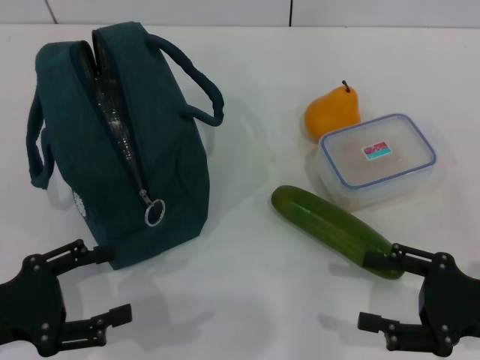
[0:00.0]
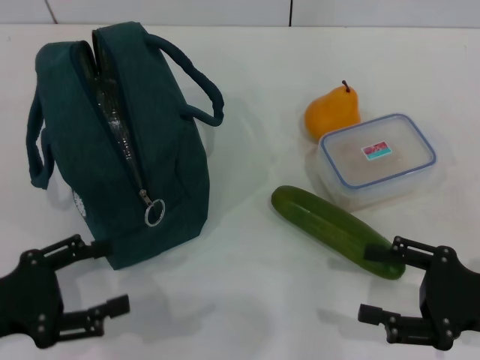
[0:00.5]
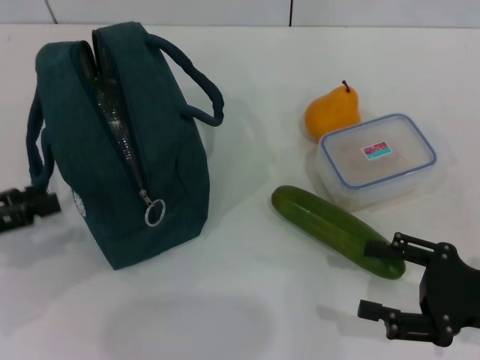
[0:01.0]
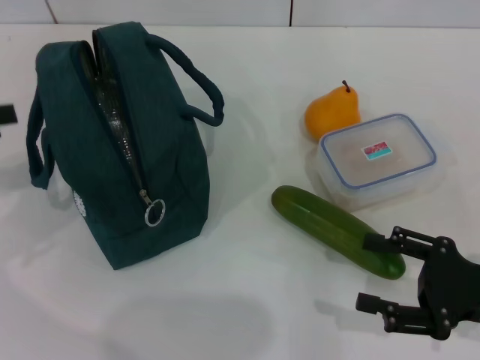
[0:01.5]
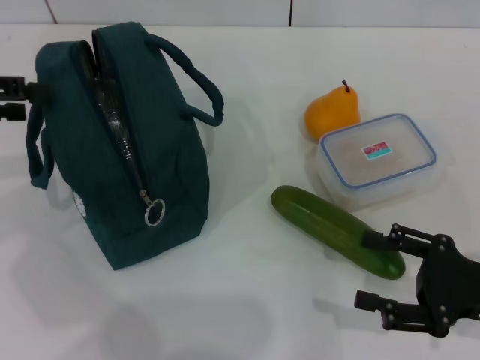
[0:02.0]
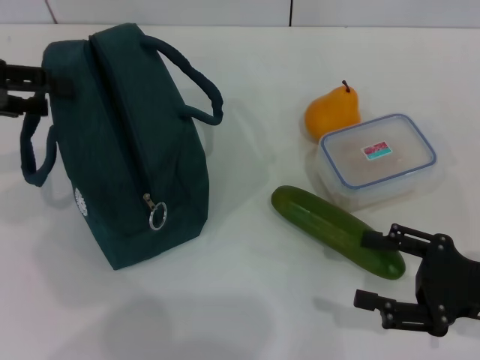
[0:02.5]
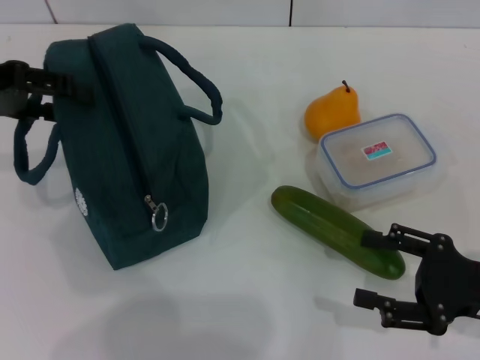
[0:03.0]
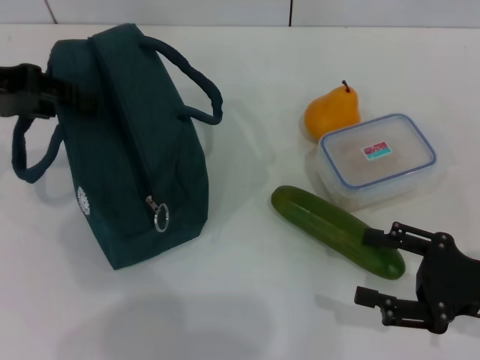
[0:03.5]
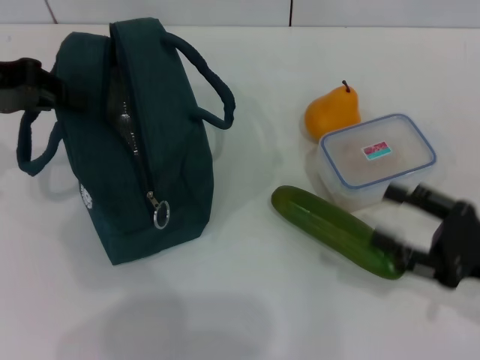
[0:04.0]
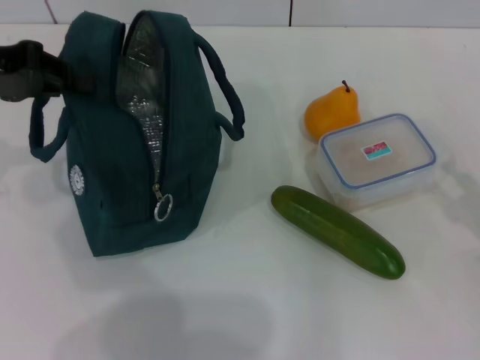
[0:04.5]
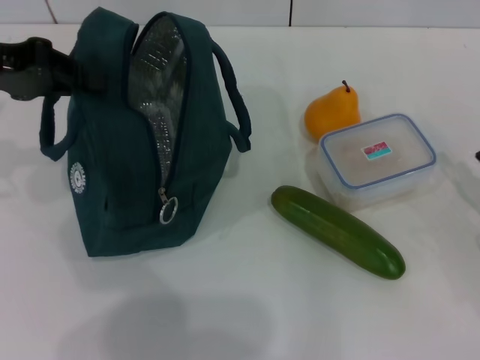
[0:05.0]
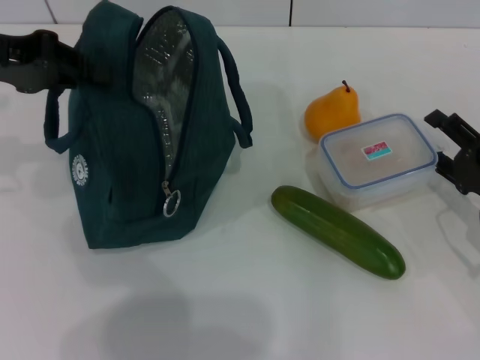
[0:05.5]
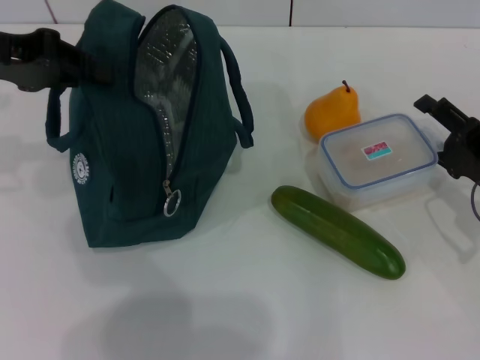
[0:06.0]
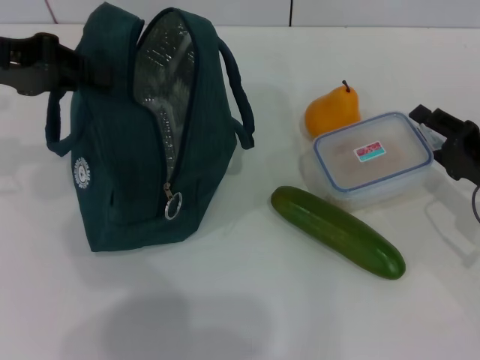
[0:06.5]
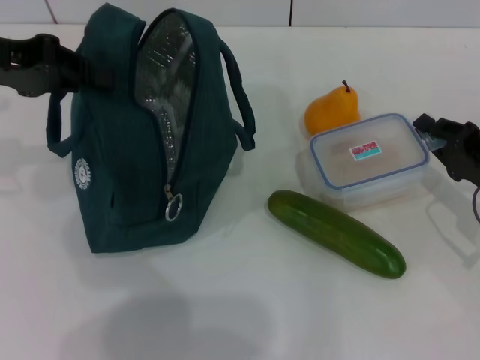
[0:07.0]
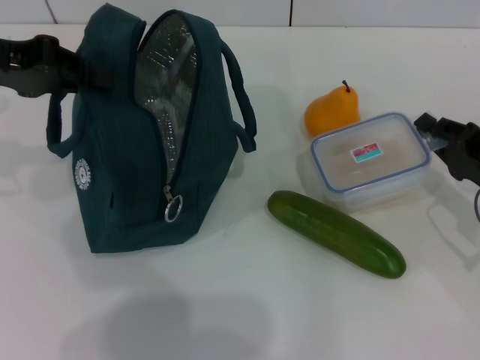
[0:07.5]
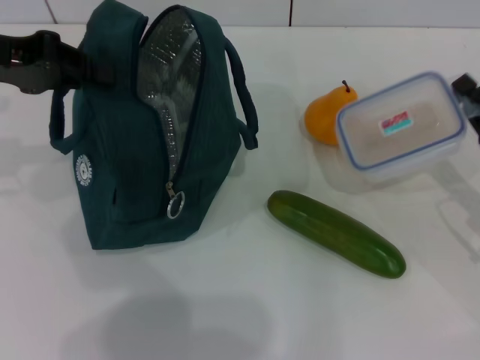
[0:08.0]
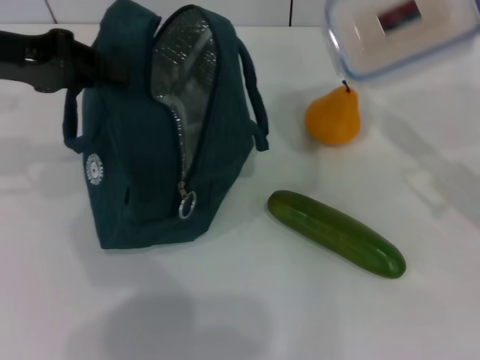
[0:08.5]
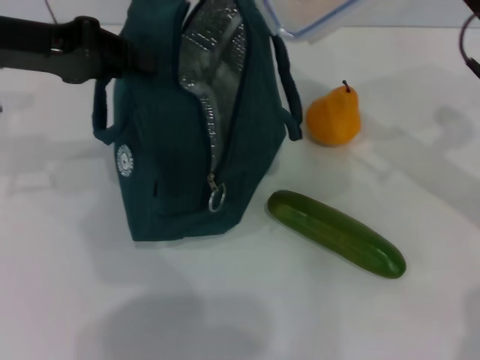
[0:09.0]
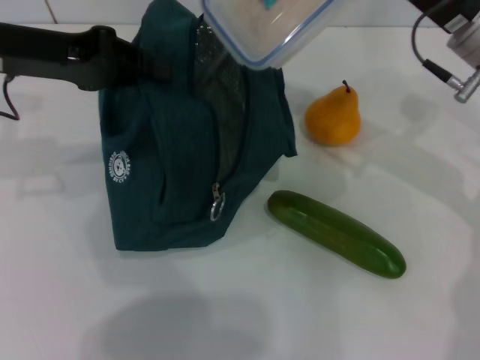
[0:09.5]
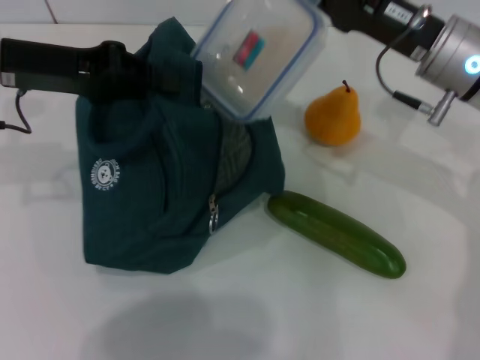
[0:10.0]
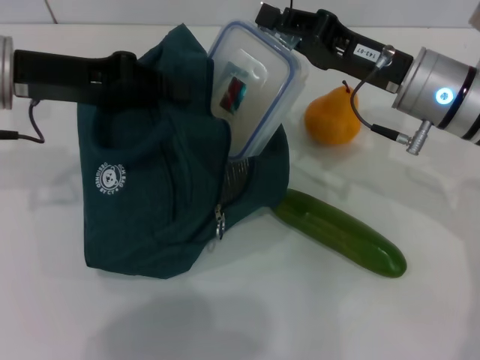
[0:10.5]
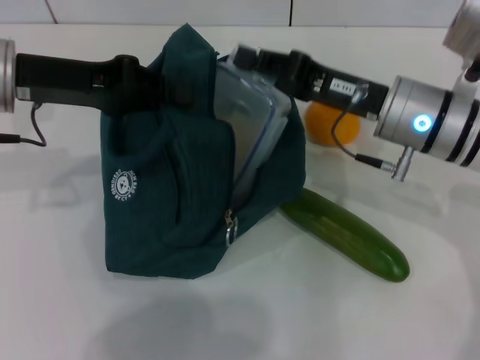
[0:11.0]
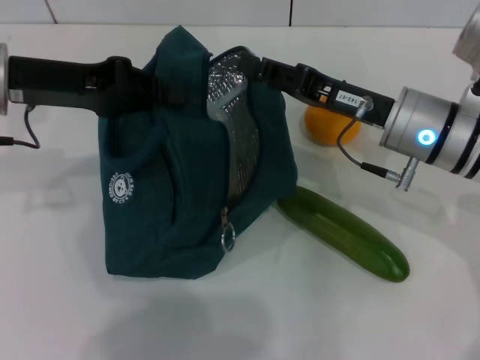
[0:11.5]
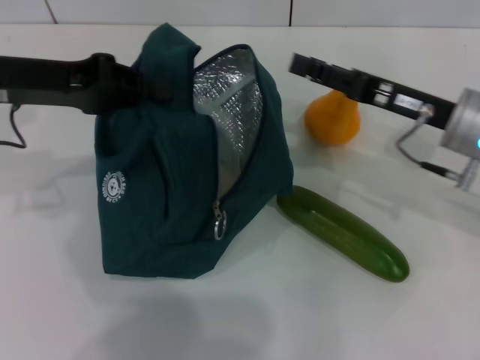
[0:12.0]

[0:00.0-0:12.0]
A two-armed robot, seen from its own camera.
Step, 0:00.0 to 0:05.0: Hold the lunch bag with your left hand.
Step, 0:05.5 to 0:07.5: Pick up the lunch box with your right hand.
Step, 0:08.0 to 0:11.5: Place the lunch box into the lunch bag with your right hand.
0:00.0 to 0:02.0: The left gripper is displaced forward and upward by some 20 cm.
0:02.0 to 0:04.0: The left gripper ends up approximately 5 cm from where it was, and closes.
0:04.0 to 0:06.0: The right gripper heads forward, covering some 10 cm.
0:06.0 to 0:08.0: The right gripper closes.
0:08.0 to 0:10.0: The right gripper travels to the left, upward and forward by approximately 20 cm. The left gripper shifts by about 5 cm.
0:10.0 to 0:12.0: The right gripper ends up about 5 cm from where it was, and opens.

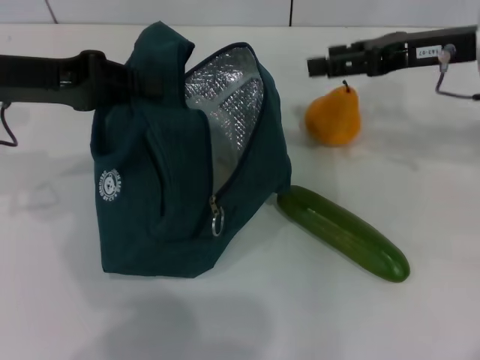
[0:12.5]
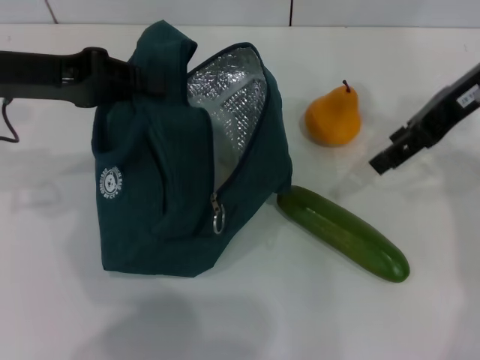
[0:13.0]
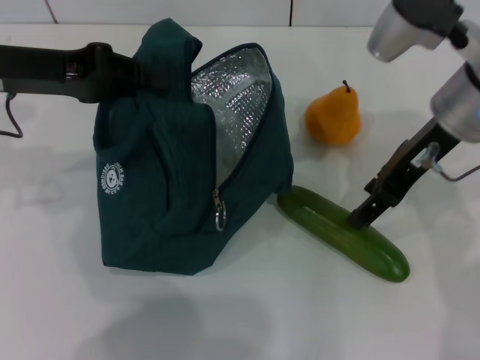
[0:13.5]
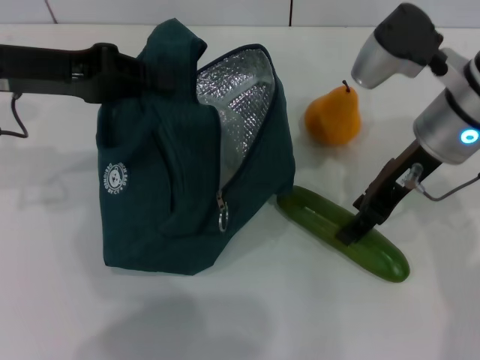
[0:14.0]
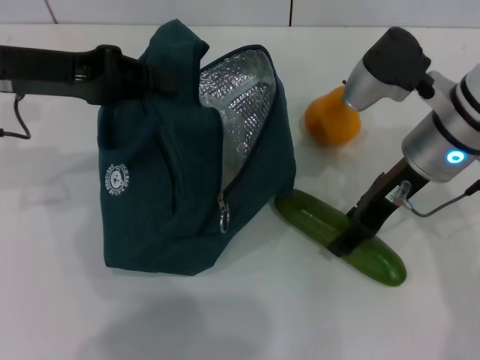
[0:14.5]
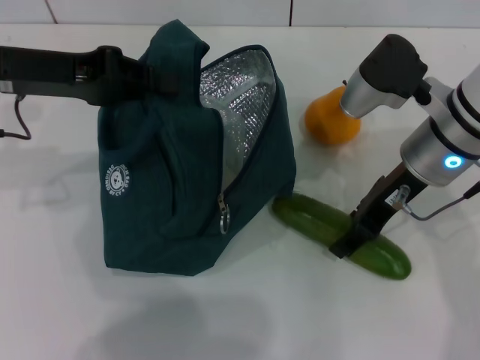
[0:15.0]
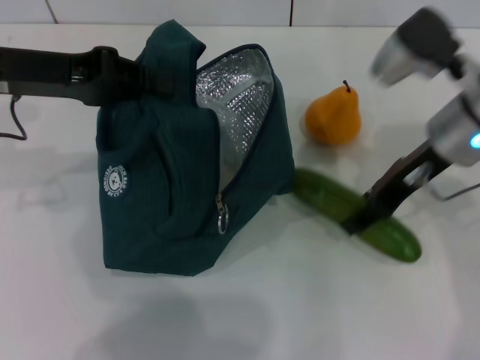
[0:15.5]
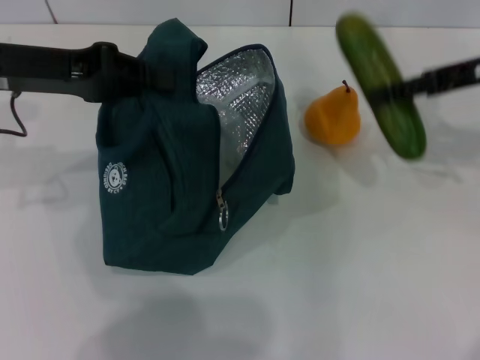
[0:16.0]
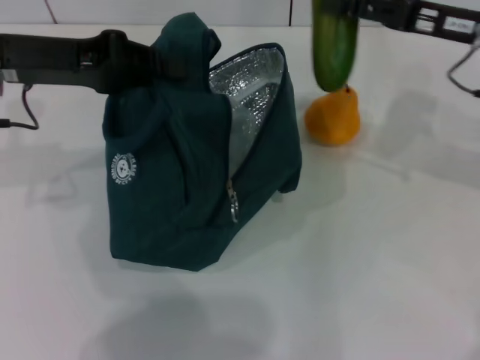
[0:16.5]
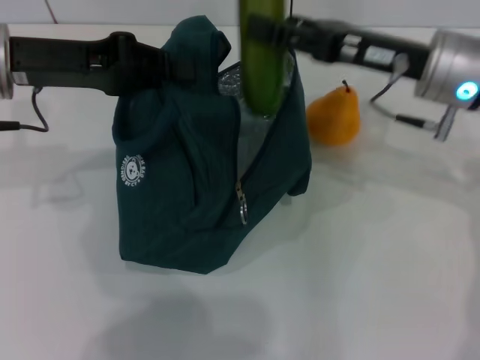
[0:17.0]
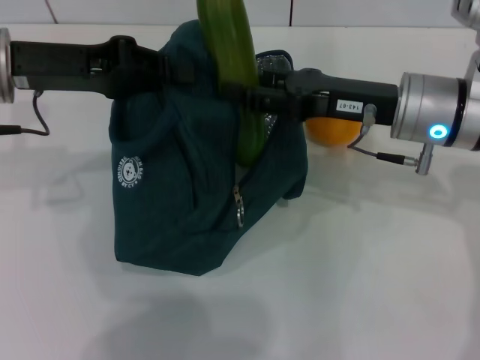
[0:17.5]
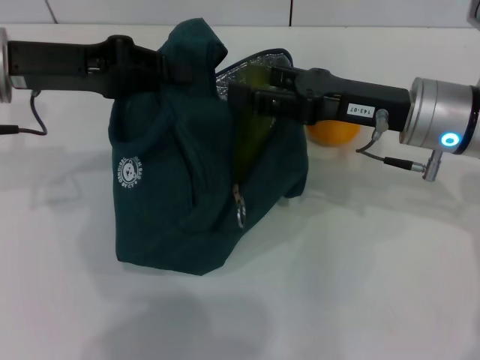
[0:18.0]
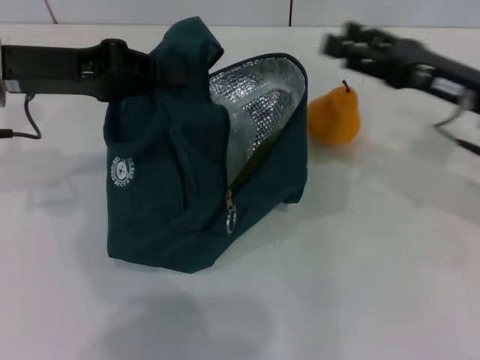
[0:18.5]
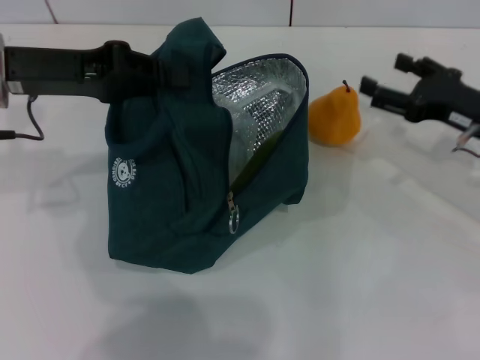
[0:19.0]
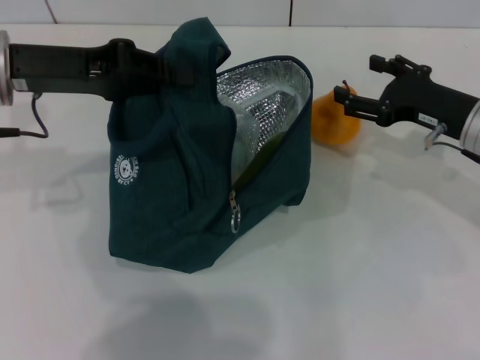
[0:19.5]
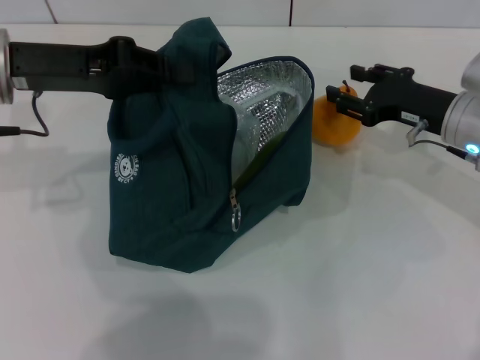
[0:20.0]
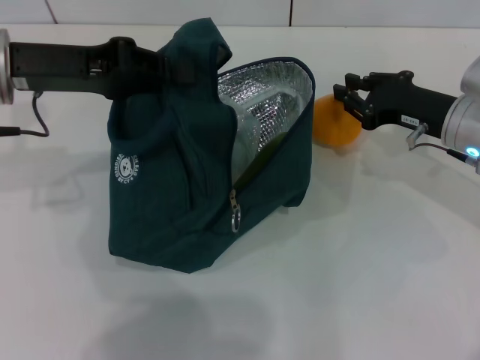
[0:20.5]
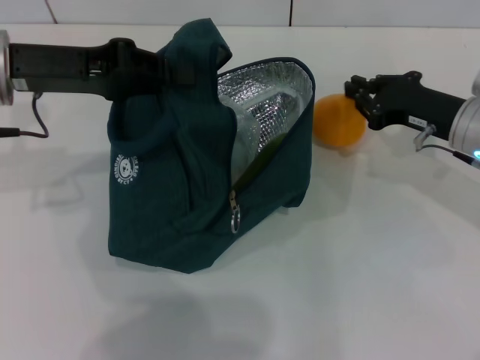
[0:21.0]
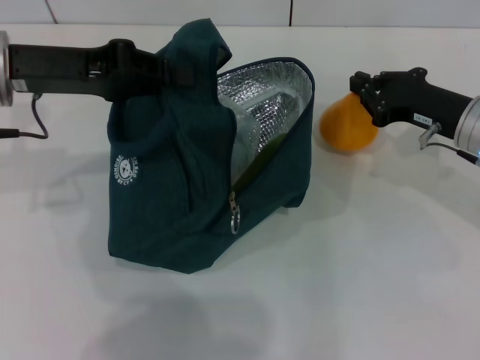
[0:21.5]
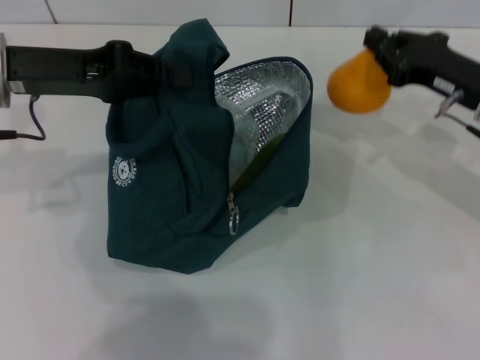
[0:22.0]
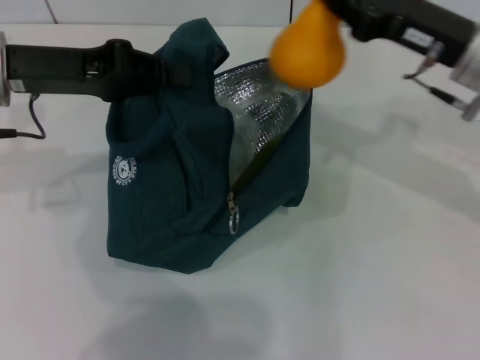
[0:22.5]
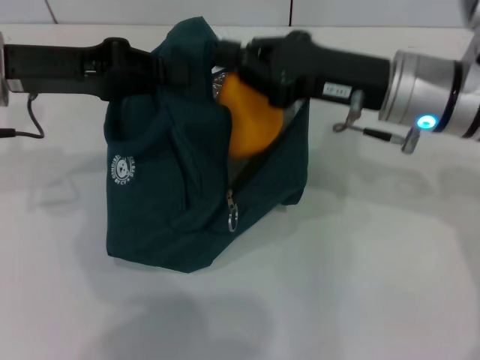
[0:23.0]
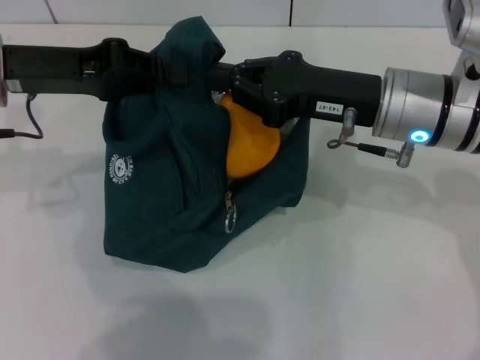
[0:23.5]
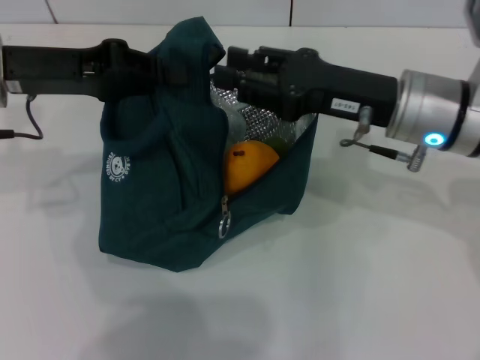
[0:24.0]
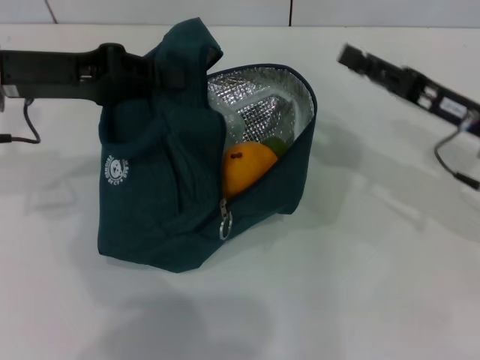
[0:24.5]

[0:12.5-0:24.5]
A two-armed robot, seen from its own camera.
Step, 0:12.5 to 0:15.0: Pick up the cucumber with your right hand.
Step, 0:15.5 to 0:18.0: Put the cucumber into the lunch bag with your right hand.
Step, 0:18.5 to 0:21.0: Grab the pear with your right hand.
0:12.5 to 0:14.5: The right gripper heads to the left, covering roughly 5 cm.
0:14.5 to 0:16.5: The right gripper is displaced to the right by roughly 10 cm.
0:16.5 to 0:18.5: The right gripper heads downward, covering about 5 cm, and reaches about 10 cm to the left, then returns.
0:18.5 to 0:20.5: The right gripper travels downward by about 5 cm, and closes.
0:20.5 to 0:22.5: The right gripper shifts roughly 10 cm upward.
0:22.5 to 0:24.5: The right gripper is displaced downward by approximately 5 cm, and opens its fingers.

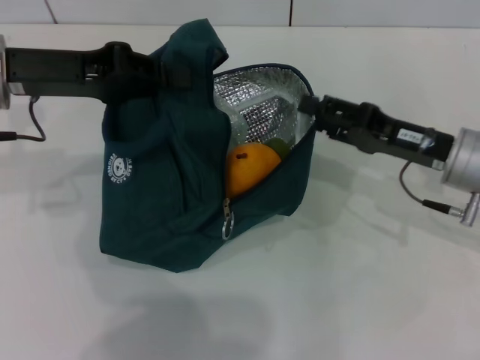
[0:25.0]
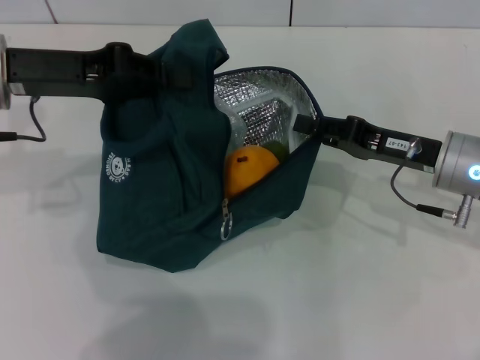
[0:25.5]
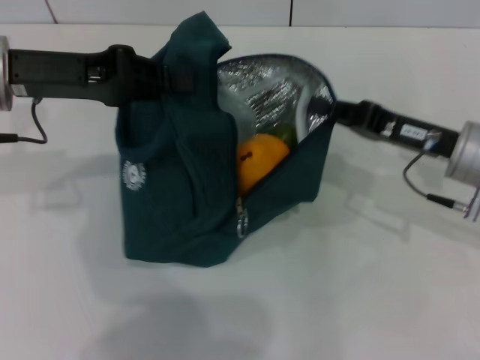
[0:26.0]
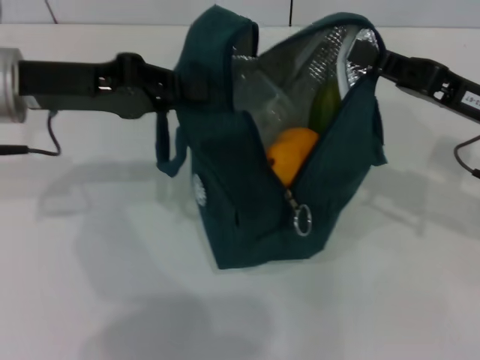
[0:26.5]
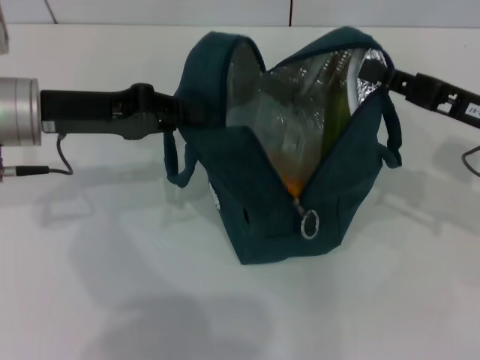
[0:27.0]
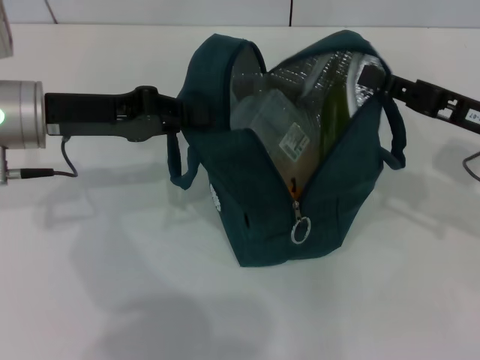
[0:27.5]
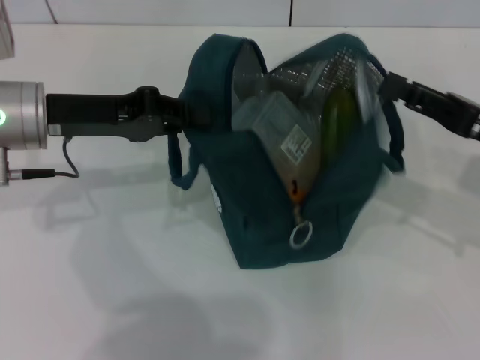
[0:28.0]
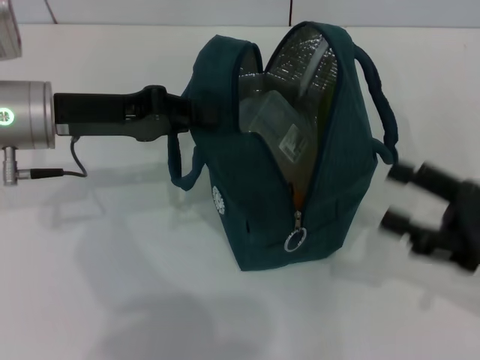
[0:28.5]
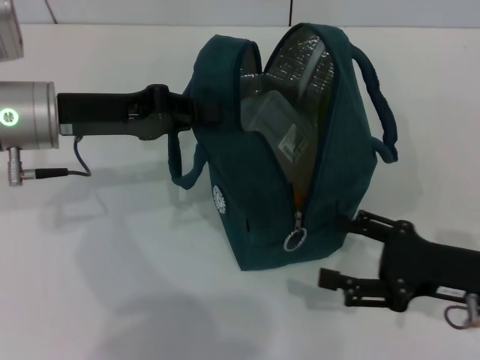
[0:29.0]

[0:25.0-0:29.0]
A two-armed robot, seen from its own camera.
Step, 0:25.0 to 0:27.5: Hold the lunch bag with your right hand.
0:25.0 to 0:27.0: The right gripper shifts by roughly 5 cm, and closes.
0:27.0 to 0:29.0: The right gripper shifts roughly 10 cm backward and downward, and opens its fingers.
